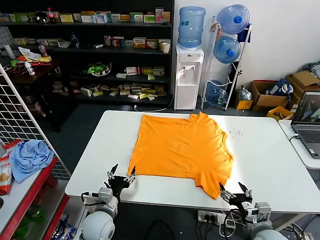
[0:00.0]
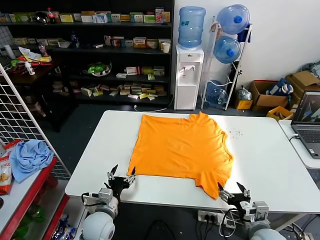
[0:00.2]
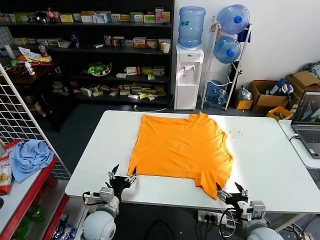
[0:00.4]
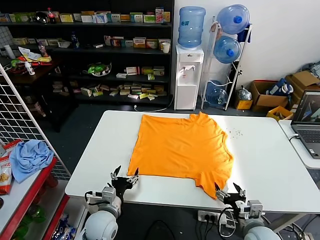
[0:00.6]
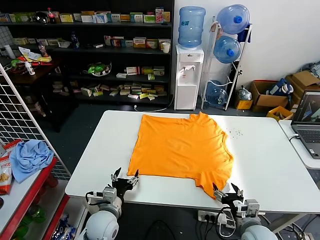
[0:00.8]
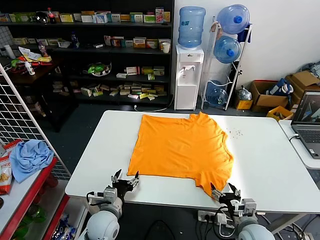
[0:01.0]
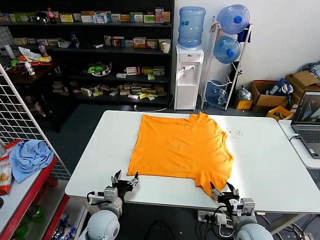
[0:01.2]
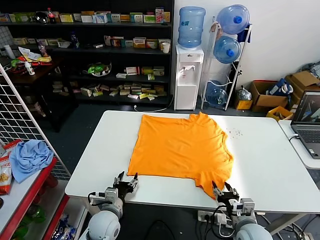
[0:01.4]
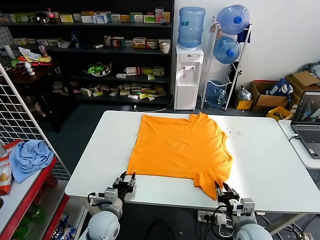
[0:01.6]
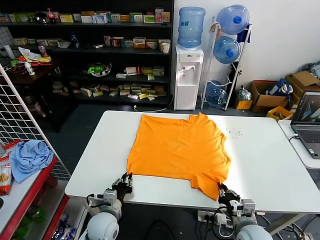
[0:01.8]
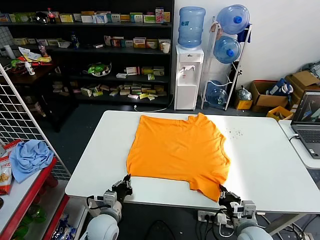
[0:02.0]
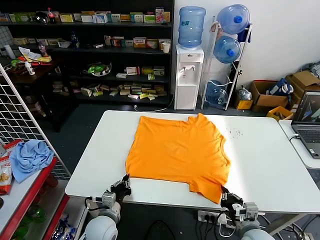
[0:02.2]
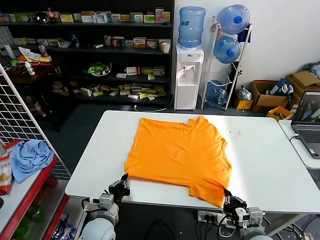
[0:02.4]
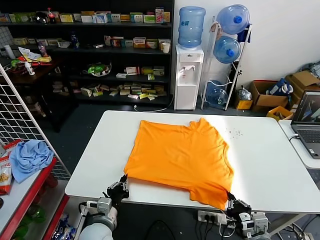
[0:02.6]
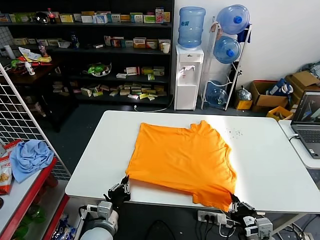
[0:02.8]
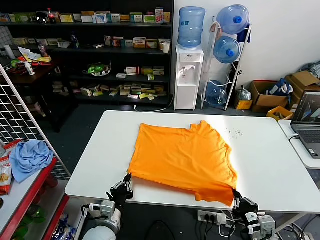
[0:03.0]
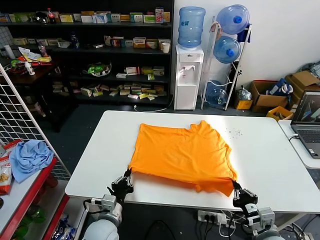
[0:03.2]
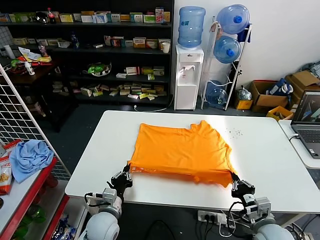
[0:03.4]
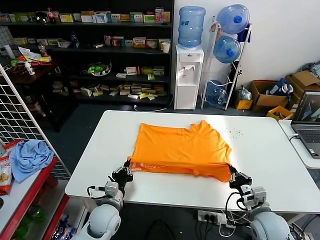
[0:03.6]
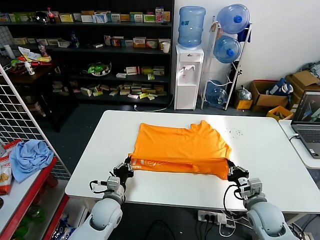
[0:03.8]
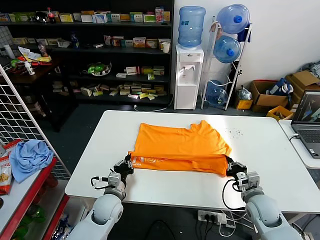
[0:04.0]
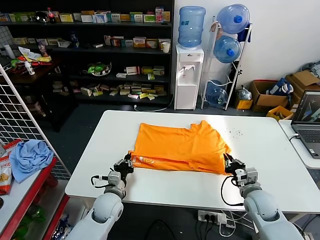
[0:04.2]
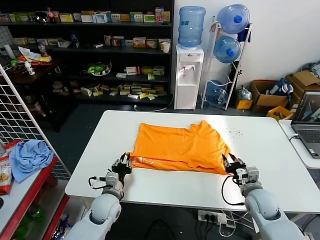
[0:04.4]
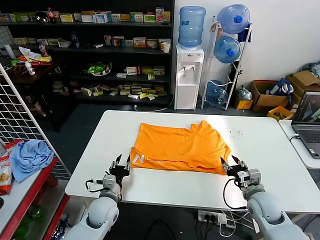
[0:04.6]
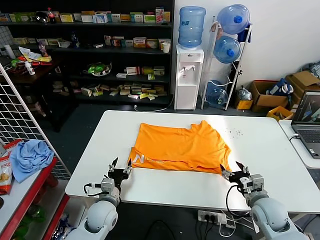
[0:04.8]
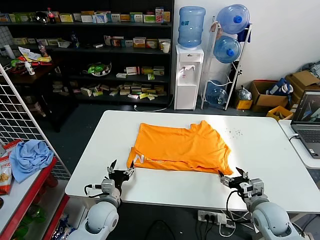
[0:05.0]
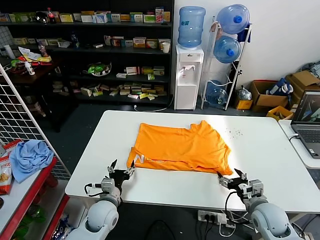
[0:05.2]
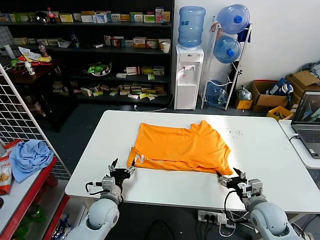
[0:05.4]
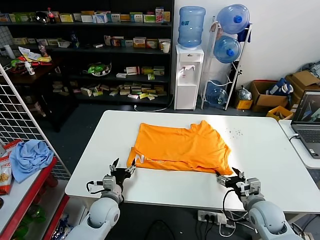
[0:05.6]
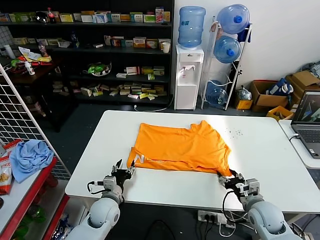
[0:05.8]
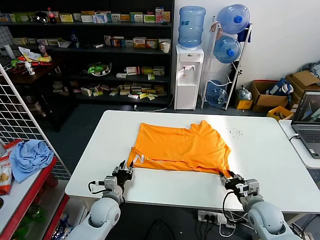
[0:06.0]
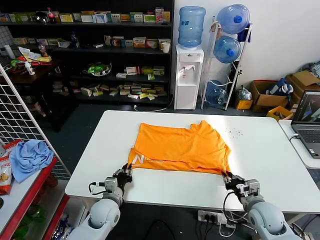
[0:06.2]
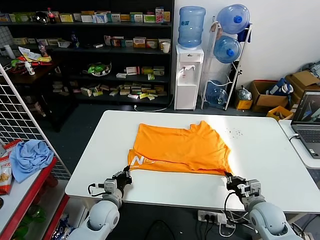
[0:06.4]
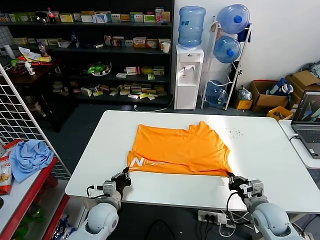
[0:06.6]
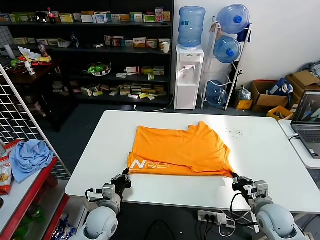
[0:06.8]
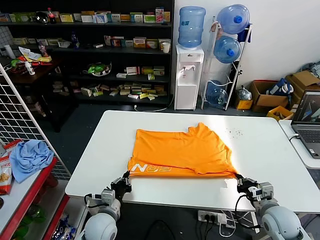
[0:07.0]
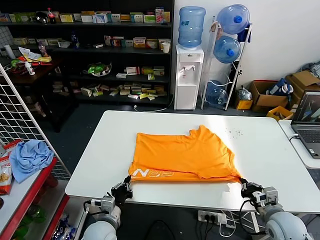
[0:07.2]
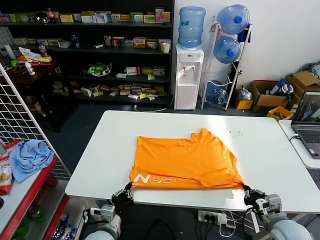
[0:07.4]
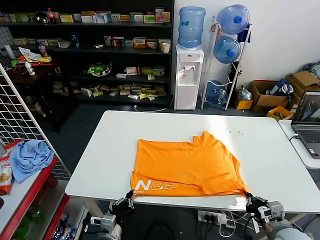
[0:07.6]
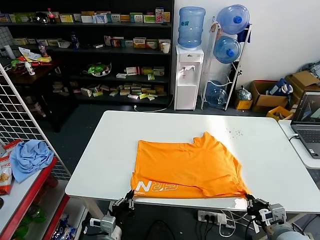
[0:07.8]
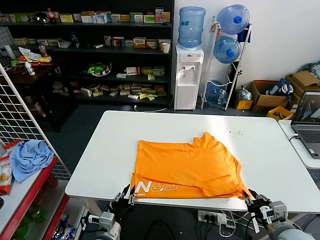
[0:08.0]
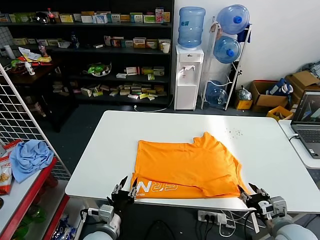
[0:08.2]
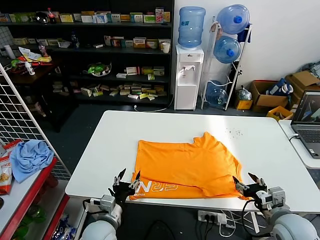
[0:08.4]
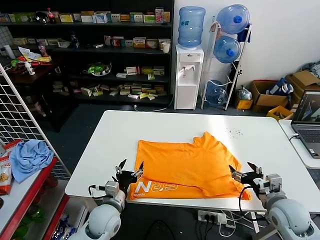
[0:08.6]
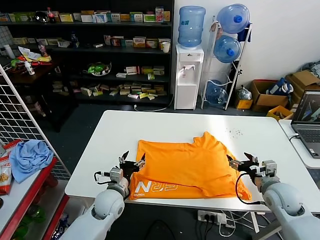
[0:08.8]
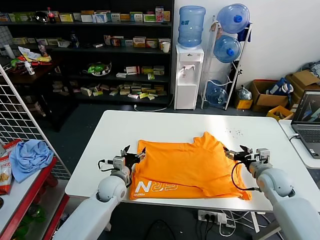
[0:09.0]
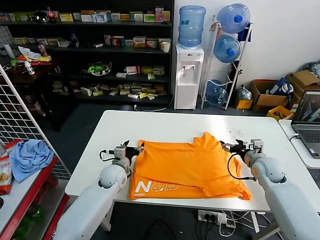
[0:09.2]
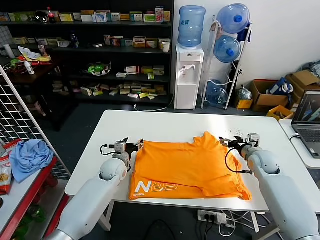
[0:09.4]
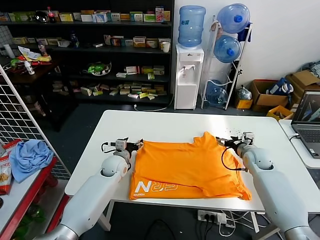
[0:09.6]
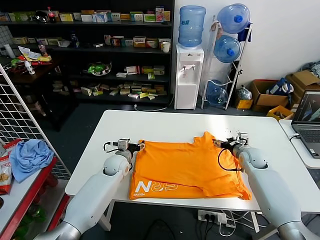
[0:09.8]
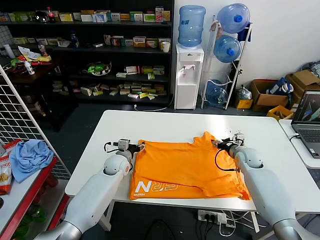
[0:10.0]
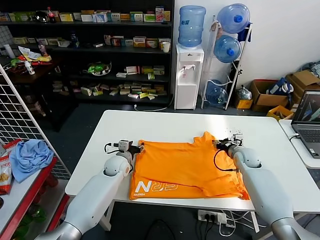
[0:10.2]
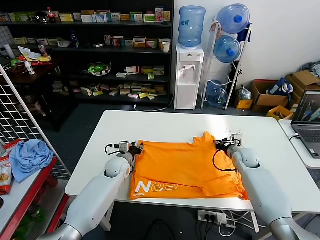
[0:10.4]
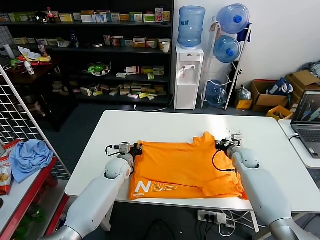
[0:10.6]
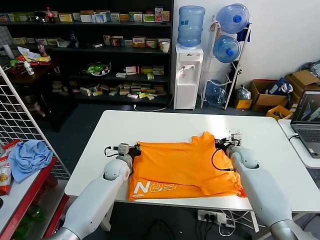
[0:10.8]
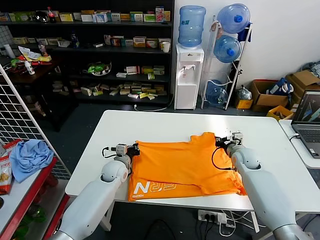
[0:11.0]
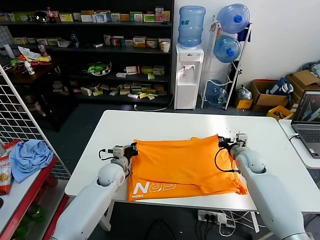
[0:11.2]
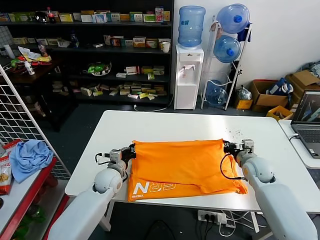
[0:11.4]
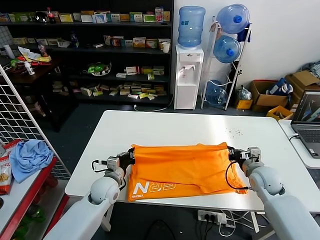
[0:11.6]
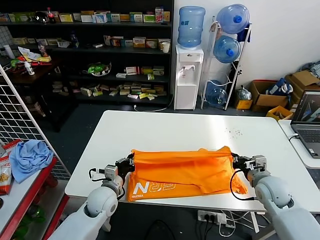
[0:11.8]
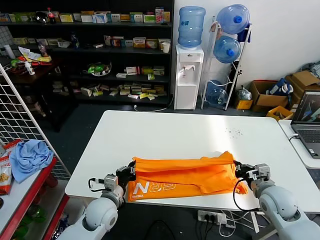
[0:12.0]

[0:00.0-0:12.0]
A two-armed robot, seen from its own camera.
Task of the whole recording: fold and organize the clothes.
Step, 0:00.0 to 0:02.2: use both grippers simultaneously to clamp the lower edge of the clothing fabric.
Step, 0:02.4 to 0:04.6: use both grippers to drag the lower edge of the fabric forward and fold it over the upper edge.
Step, 0:05.0 to 0:08.2: Drag the clothes downward with both gripper.
Step, 0:08.4 to 0:10.8: use both grippers simultaneously to clamp the upper edge of the clothing fabric.
0:01.6 to 0:03.0: The left gripper shifts about 5 cm backward, and closes up, while the right gripper goes roughly 10 cm backward and upward.
0:03.0 to 0:04.4: The grippers both shift forward by roughly 15 cm. The right gripper opens.
0:04.4 to 0:06.0: The left gripper opens and closes again, while the right gripper opens and closes again.
0:06.0 to 0:07.6: The two grippers go roughly 10 cm backward. The left gripper closes its fingers; the right gripper closes up.
0:07.6 to 0:09.0: Both grippers move forward, approximately 20 cm. The left gripper opens up. Meanwhile the right gripper opens its fingers.
0:09.0 to 0:10.4: The right gripper moves forward and downward, approximately 10 cm, and closes its fingers; the left gripper shifts roughly 10 cm forward, and closes its fingers.
0:10.4 to 0:12.0: Both grippers travel together backward, approximately 20 cm. The left gripper closes up.

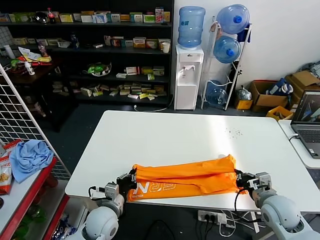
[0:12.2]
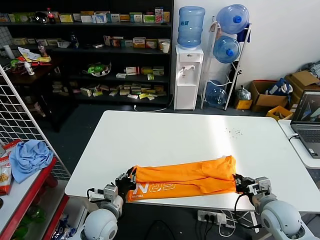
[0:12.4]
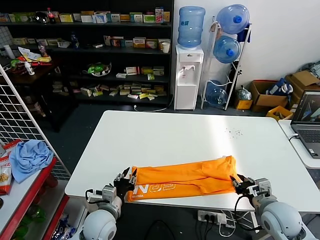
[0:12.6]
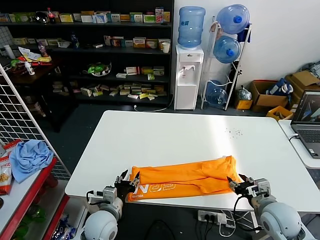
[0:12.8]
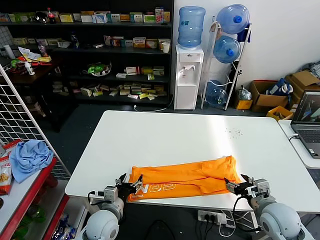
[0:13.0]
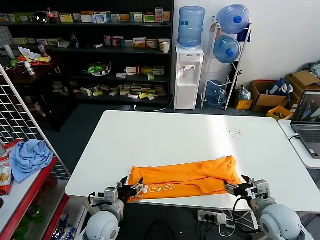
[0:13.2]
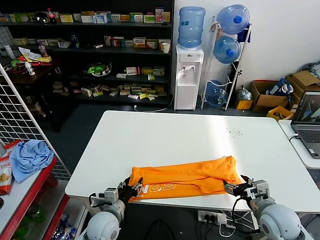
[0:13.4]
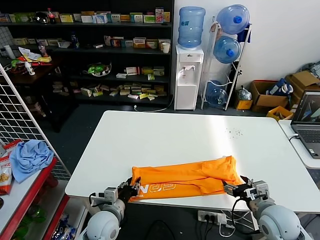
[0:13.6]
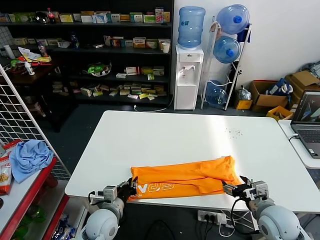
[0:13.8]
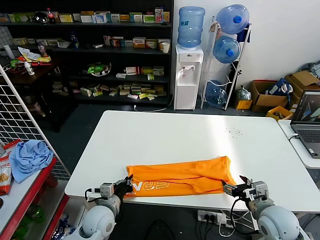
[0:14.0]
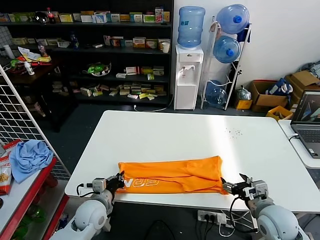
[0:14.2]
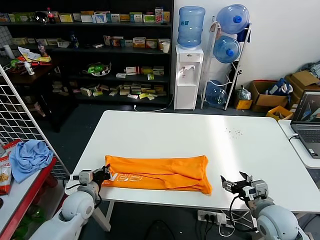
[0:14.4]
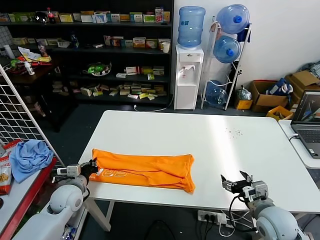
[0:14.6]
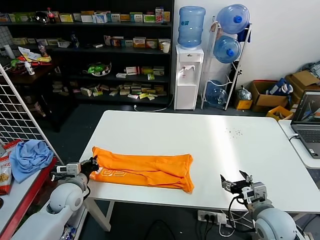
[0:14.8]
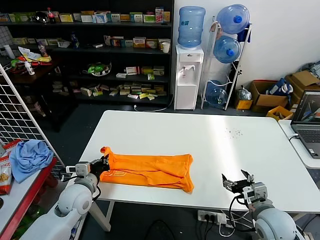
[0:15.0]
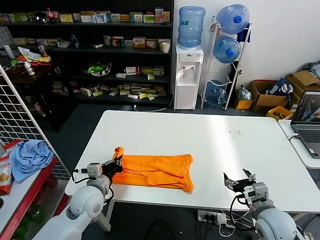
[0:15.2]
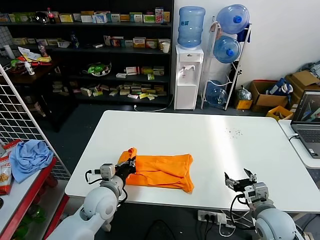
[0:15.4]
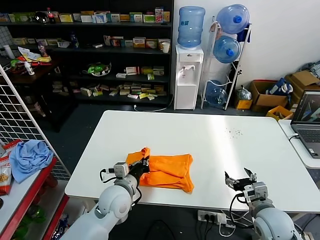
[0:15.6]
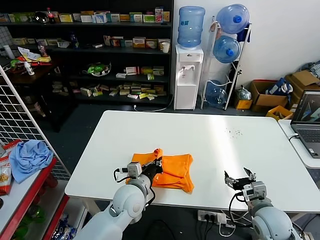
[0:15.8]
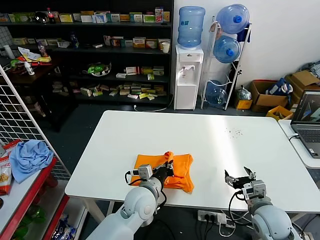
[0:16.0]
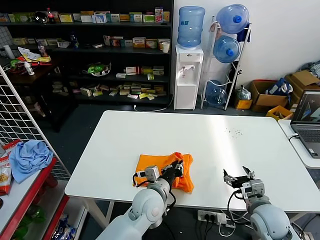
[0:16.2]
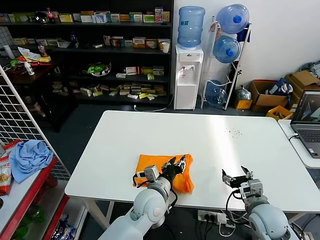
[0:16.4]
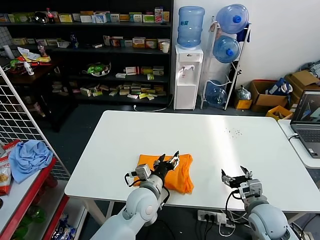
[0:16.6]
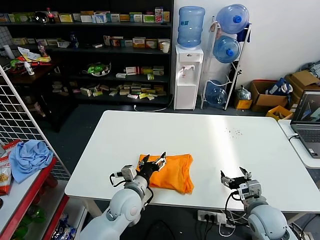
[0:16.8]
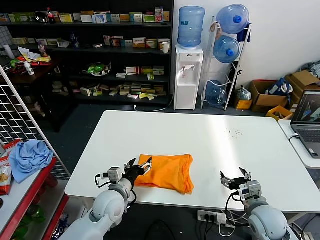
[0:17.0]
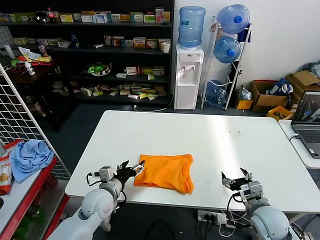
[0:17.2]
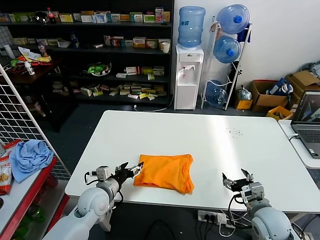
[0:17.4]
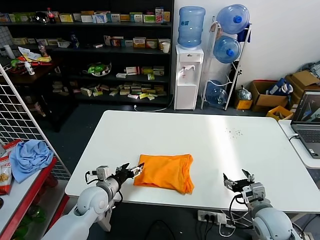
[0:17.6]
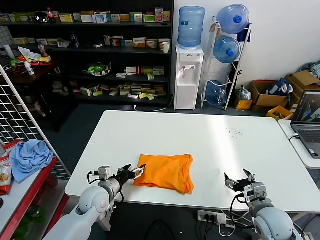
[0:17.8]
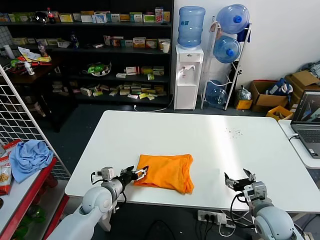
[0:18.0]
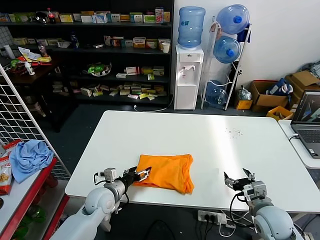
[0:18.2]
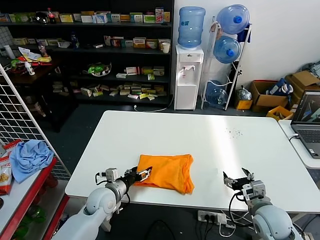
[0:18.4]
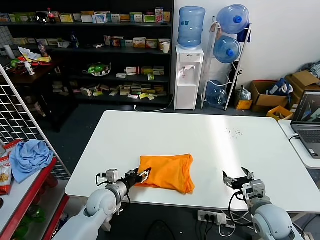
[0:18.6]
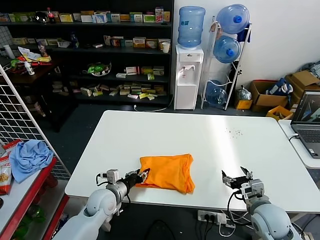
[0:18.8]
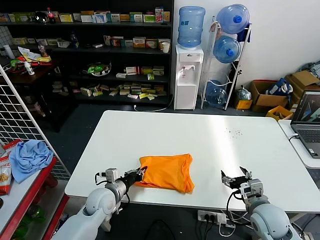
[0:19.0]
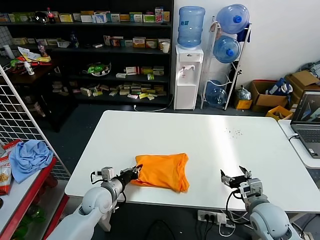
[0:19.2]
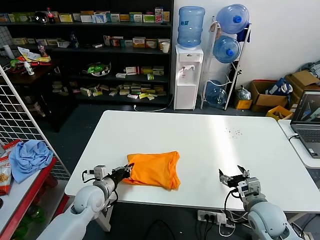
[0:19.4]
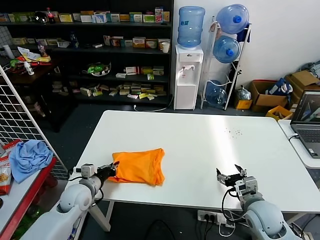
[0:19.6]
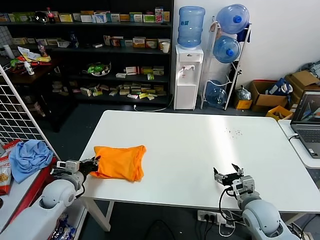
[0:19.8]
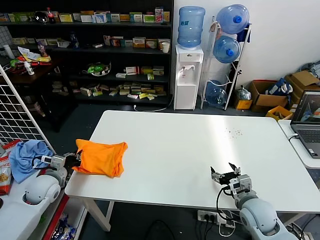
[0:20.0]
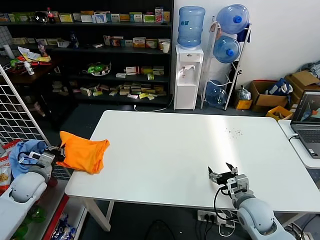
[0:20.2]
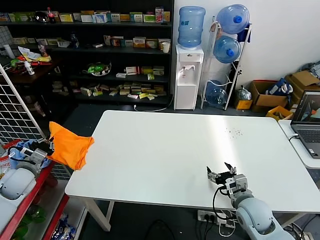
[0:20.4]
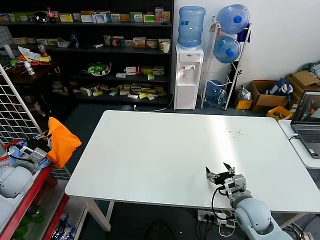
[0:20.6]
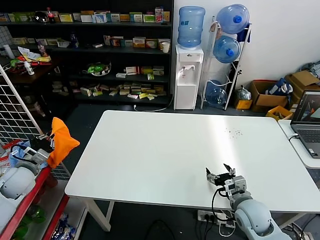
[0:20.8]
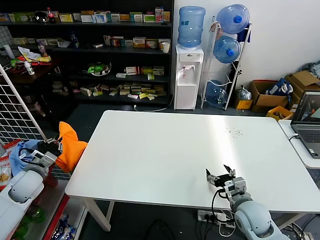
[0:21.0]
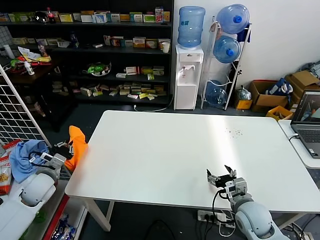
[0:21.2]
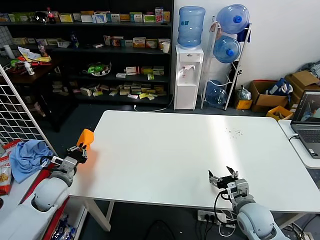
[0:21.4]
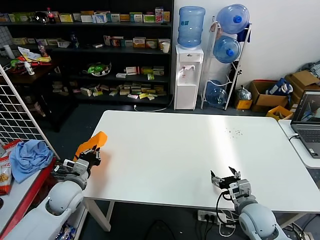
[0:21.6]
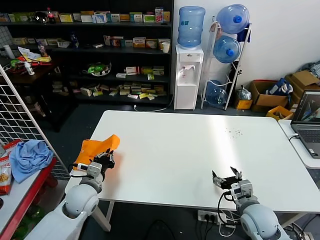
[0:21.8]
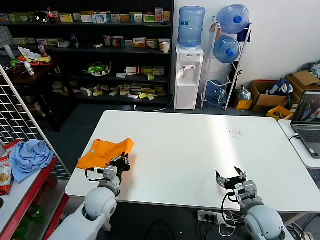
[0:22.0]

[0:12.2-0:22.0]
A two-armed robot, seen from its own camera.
Task of the whole recording: fold and organize the clothes.
Step, 0:13.2 to 0:14.0: use the left gripper to clamp the left edge of the fabric.
Step, 0:14.2 to 0:16.4: use the left gripper to drag the left edge of the fabric to the left and folds it over the right edge.
0:12.2 to 0:13.6: The left gripper opens up, while the right gripper opens its fingers.
0:13.6 to 0:15.0: The left gripper goes approximately 15 cm to the left, upward and forward, and closes.
0:15.0 to 0:16.4: The left gripper goes roughly 25 cm to the right, and opens up.
0:16.4 to 0:17.8: The left gripper heads to the left, covering about 20 cm, and opens its fingers.
0:17.8 to 0:19.2: The left gripper closes its fingers.
0:19.2 to 0:20.6: The left gripper shifts about 25 cm to the left.
0:20.6 to 0:22.0: The left gripper travels to the right by roughly 25 cm.
